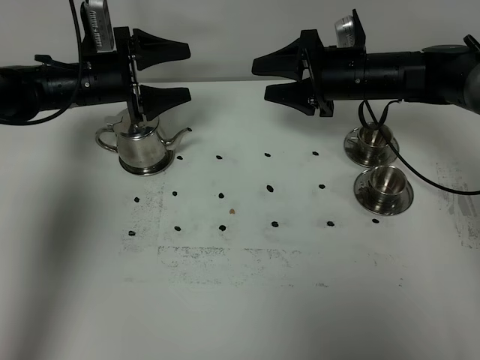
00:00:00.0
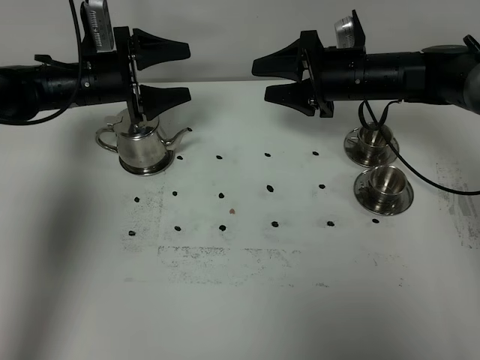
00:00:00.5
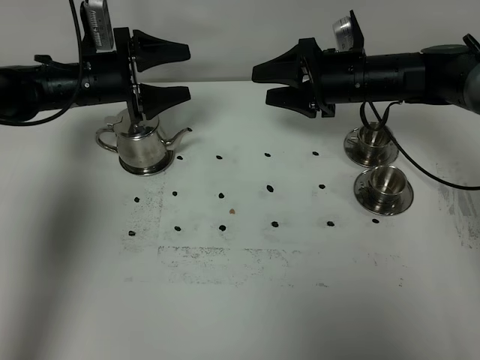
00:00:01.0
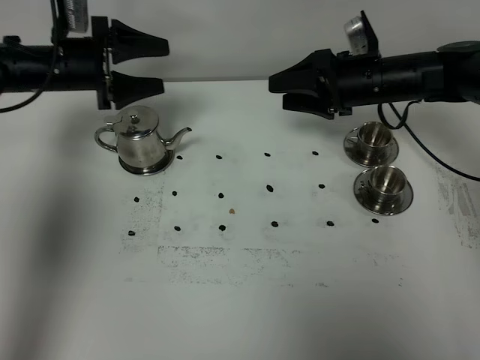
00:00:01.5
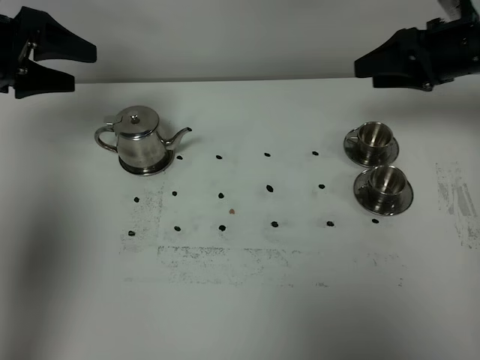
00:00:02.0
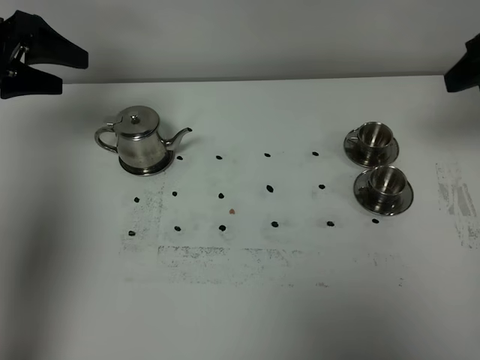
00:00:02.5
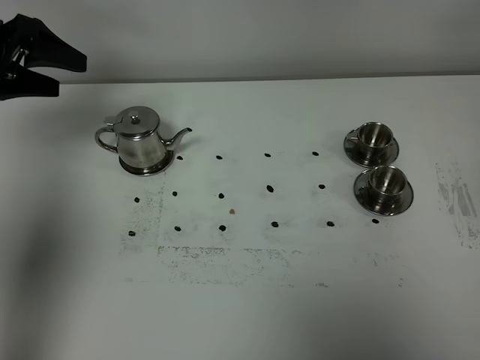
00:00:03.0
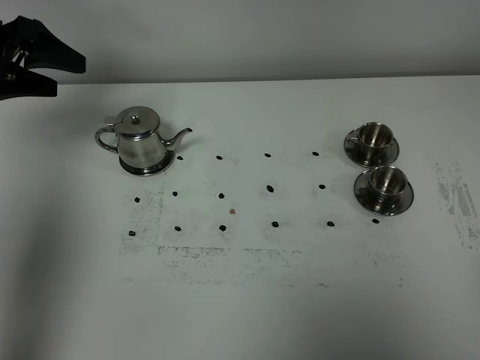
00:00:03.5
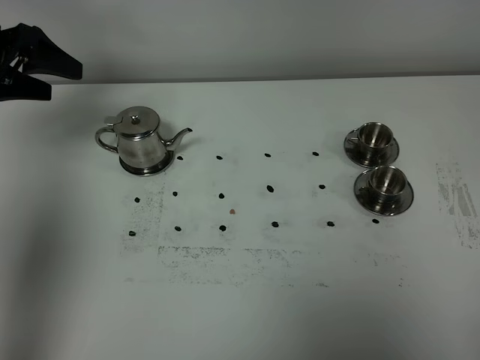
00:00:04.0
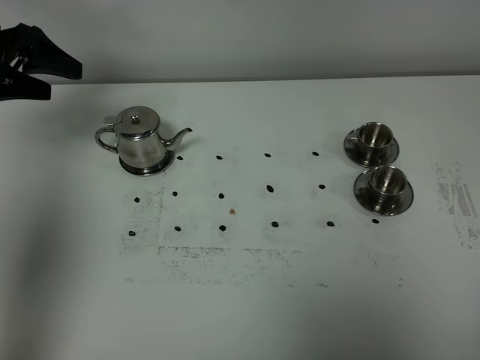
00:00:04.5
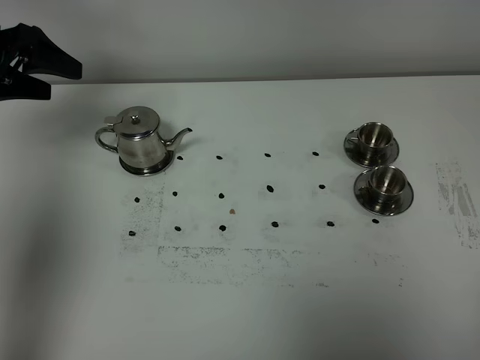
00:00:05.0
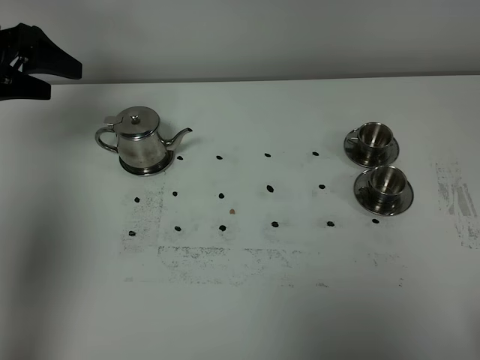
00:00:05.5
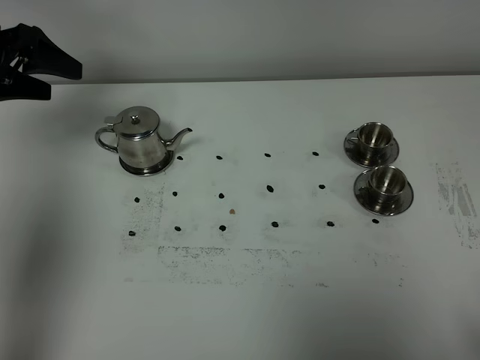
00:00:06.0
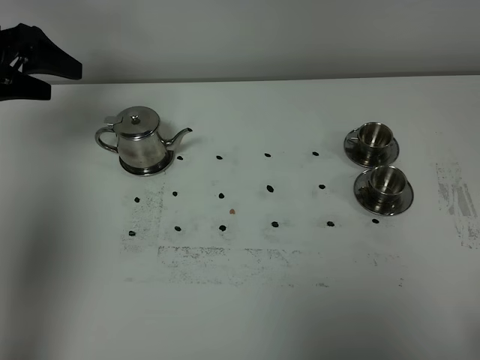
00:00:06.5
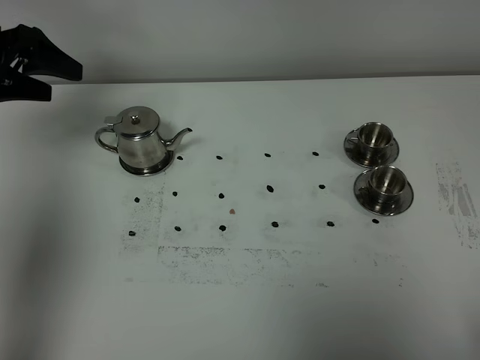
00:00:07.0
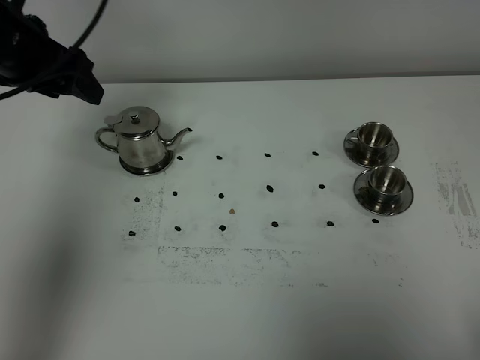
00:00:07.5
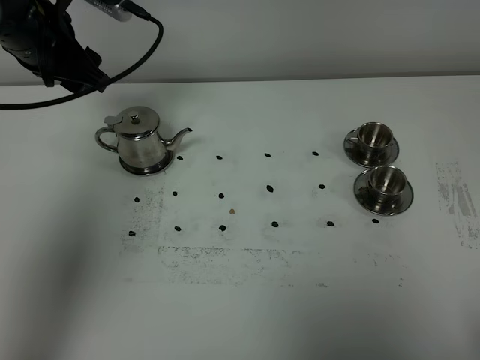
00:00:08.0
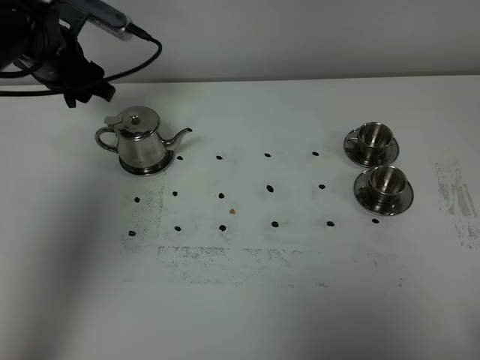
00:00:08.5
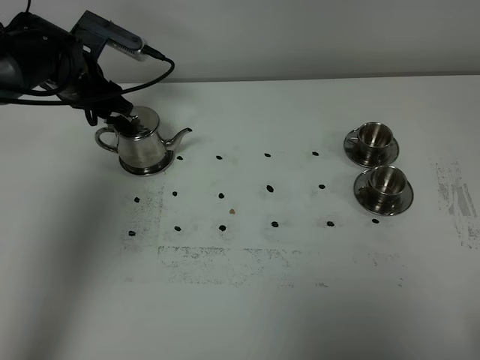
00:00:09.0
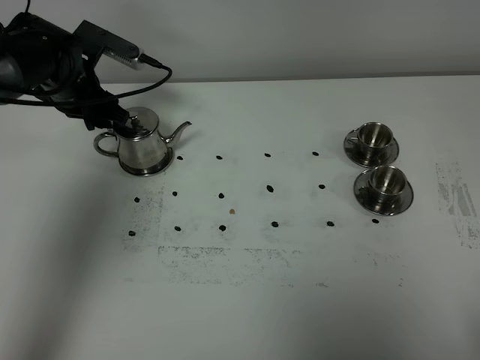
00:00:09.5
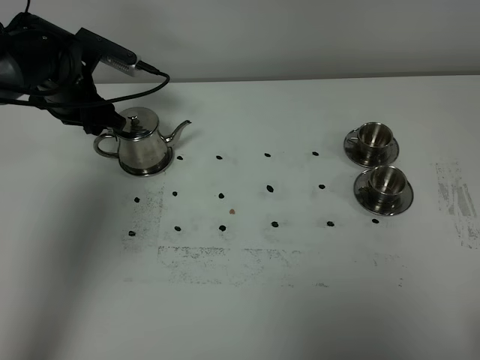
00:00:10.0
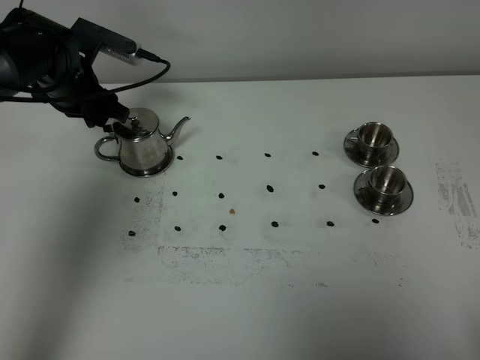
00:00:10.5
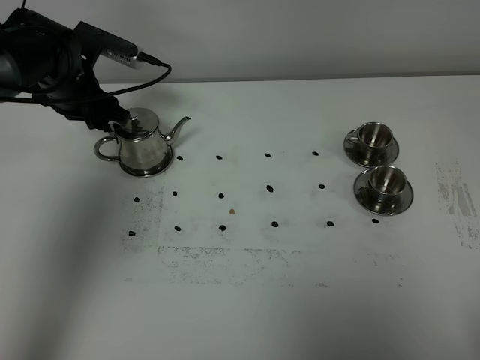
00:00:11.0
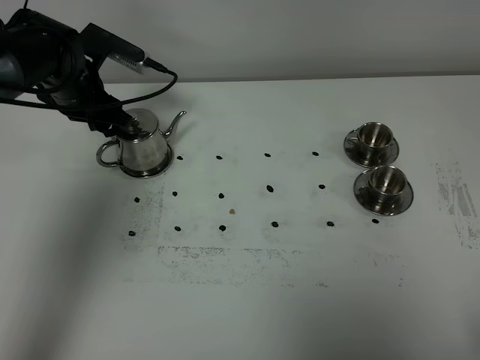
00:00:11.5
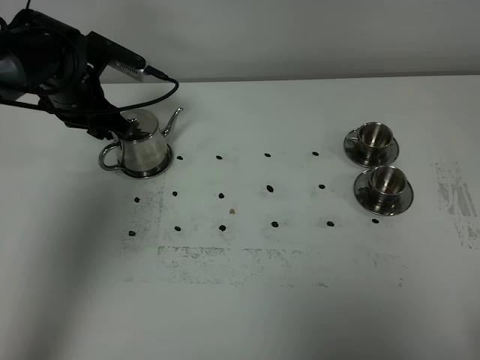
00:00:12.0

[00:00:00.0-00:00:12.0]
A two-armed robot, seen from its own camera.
Task of the whole recording: grasp the stainless steel teapot and pour the tea into the two stainless steel teacups one by one, put the stainless steel teapot back in its original place.
00:00:00.0 to 00:00:02.0: The left gripper shifts some 15 cm upward and to the left. Meanwhile the right gripper heads to the right and upward, covering roughly 15 cm.
00:00:02.0 to 00:00:04.0: The right gripper moves backward, some 40 cm.
00:00:06.0 to 00:00:08.0: The left gripper shifts about 10 cm to the right.
00:00:08.0 to 00:00:10.0: The left gripper shifts about 10 cm downward.
00:00:10.0 to 00:00:12.0: The grippers move only a little.

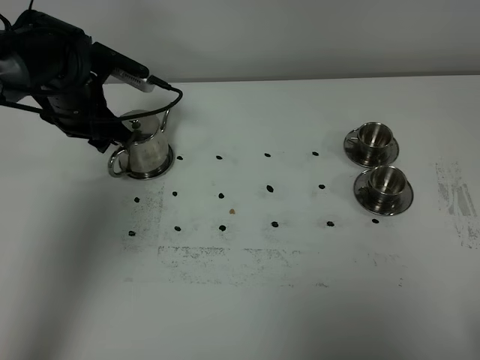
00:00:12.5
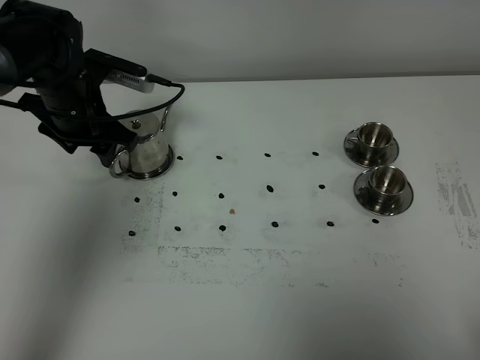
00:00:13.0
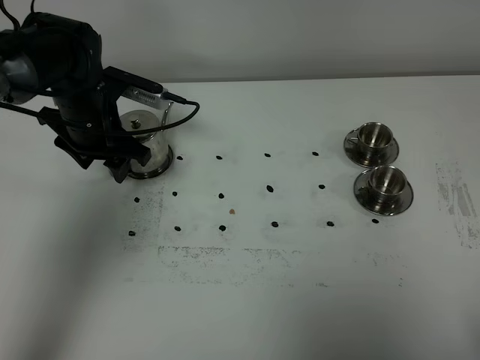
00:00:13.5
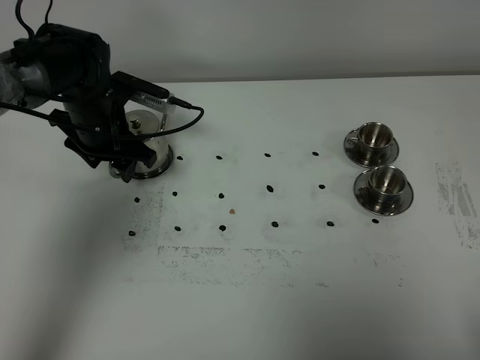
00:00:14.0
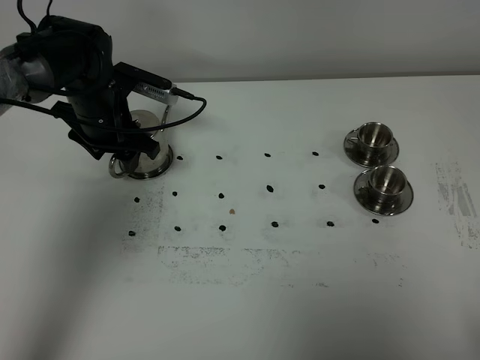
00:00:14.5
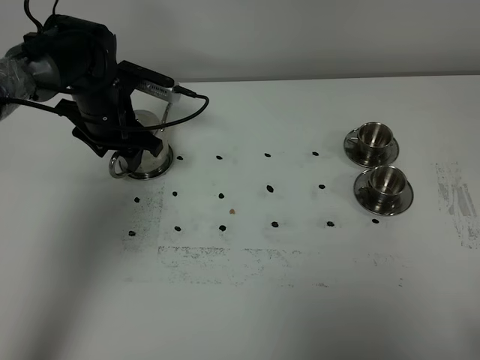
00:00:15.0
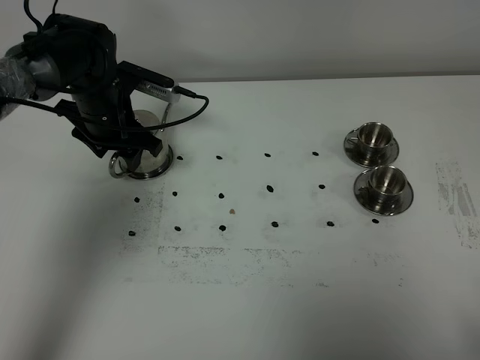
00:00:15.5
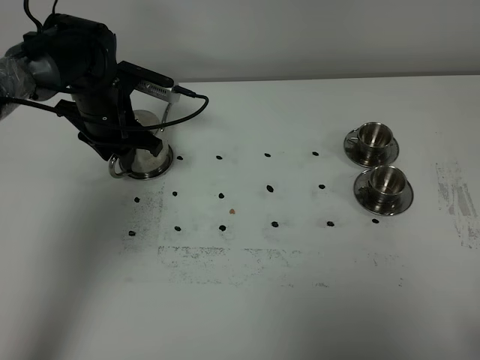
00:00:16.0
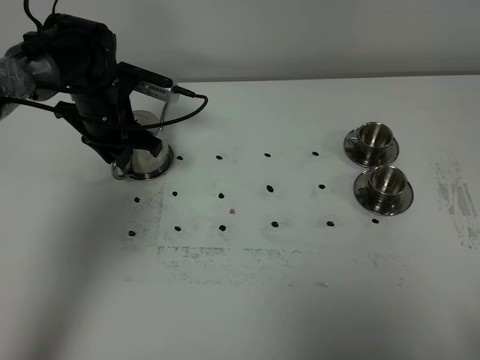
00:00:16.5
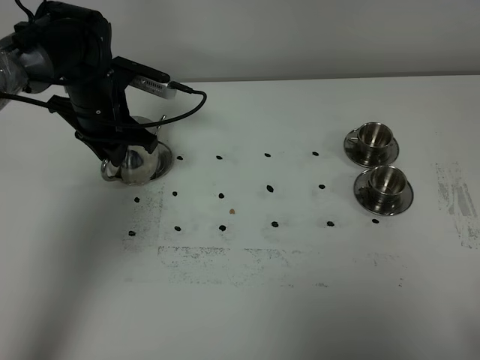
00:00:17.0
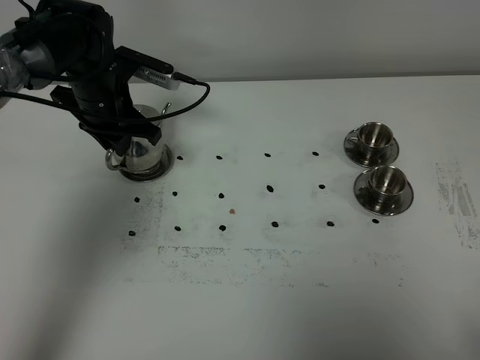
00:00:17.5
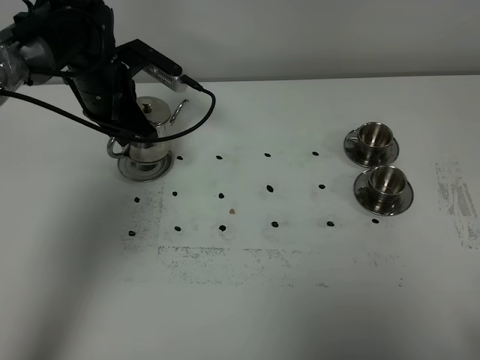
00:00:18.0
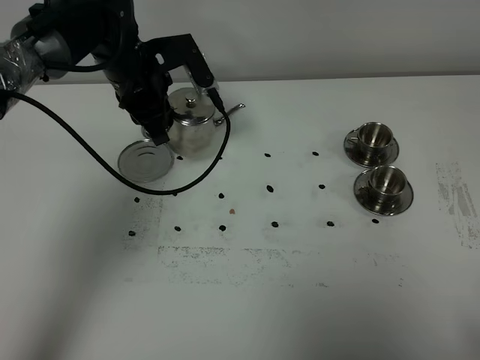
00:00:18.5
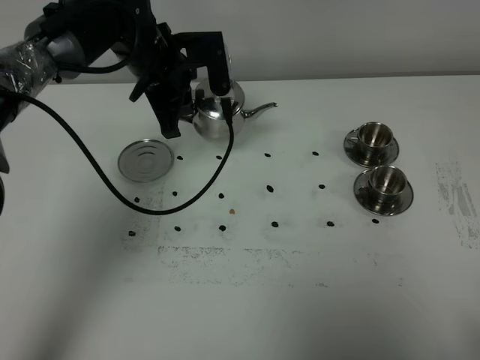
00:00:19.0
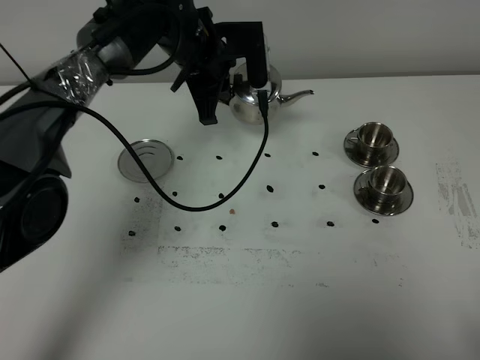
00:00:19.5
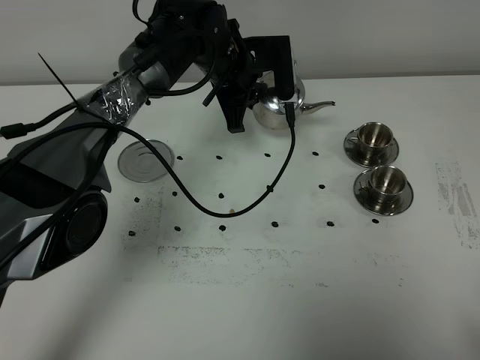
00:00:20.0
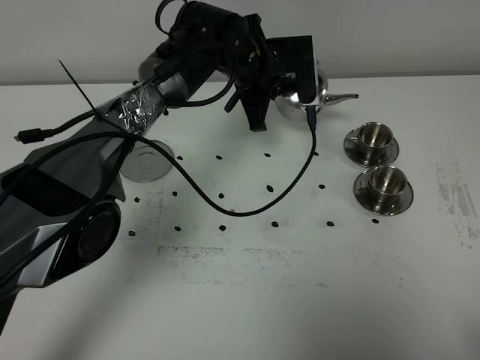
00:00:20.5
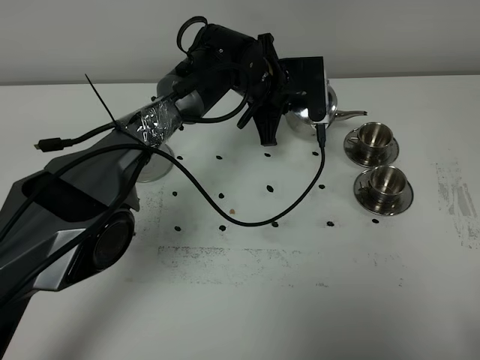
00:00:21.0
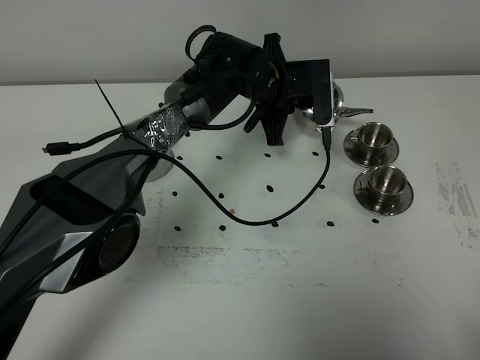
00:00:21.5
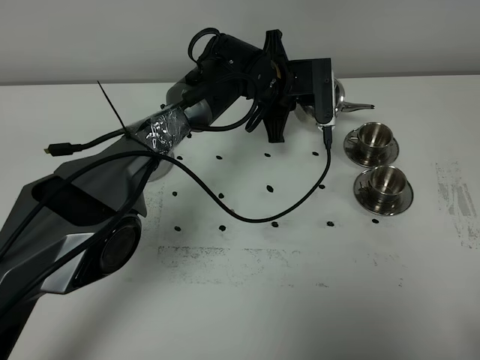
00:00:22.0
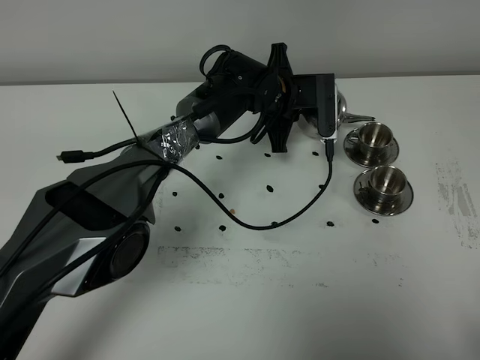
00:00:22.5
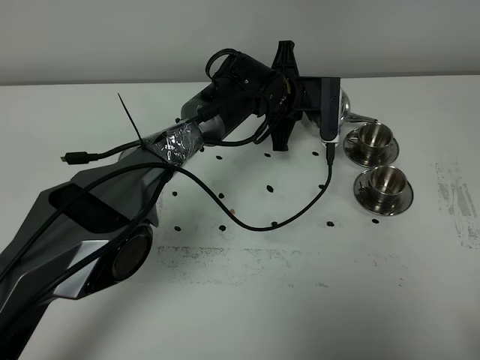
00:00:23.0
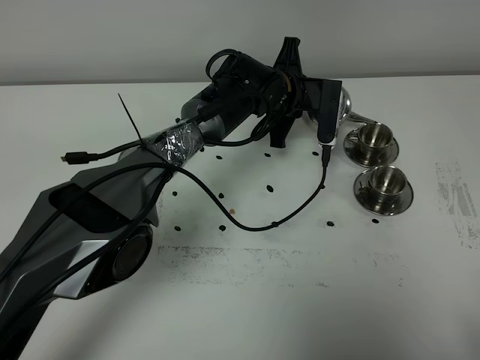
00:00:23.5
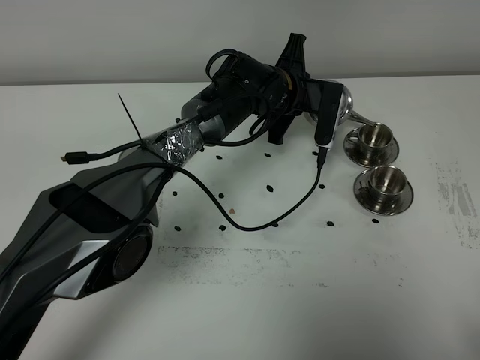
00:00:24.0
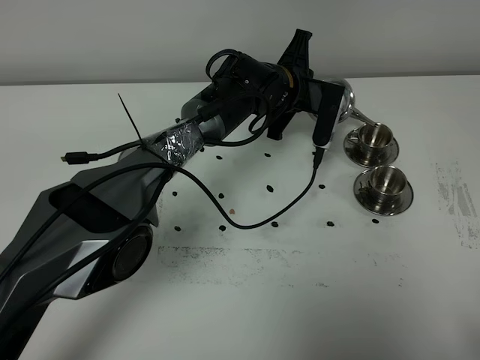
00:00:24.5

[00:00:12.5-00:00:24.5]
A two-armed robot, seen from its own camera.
Task of the whole recording: grasp the stainless steel teapot and pour the tea into the two stainless steel teacups one by one, put the stainless steel teapot back in its original place.
Step, 00:00:12.5 to 00:00:17.5: Pick up the teapot with the left gripper.
00:00:12.5 to 00:00:14.5: The grippers make only small movements.
00:00:14.5 to 00:00:16.5: The left gripper closes its fingers.
00:00:16.5 to 00:00:18.5: The left gripper shifts about 5 cm upward.
00:00:18.5 to 00:00:20.5: The left gripper moves to the right, some 15 cm.
00:00:20.5 to 00:00:22.5: The left gripper goes roughly 5 cm downward.

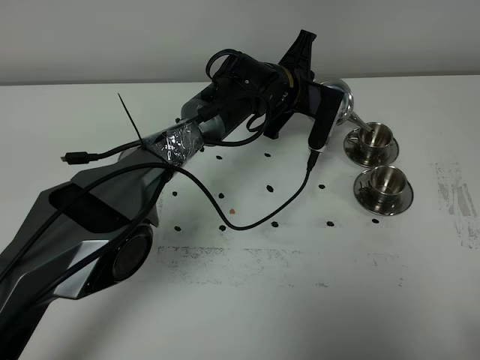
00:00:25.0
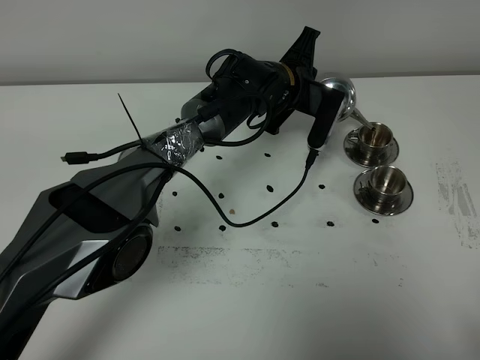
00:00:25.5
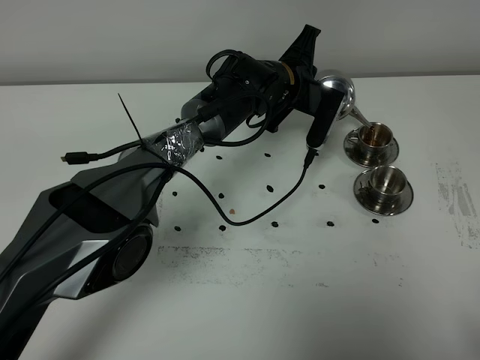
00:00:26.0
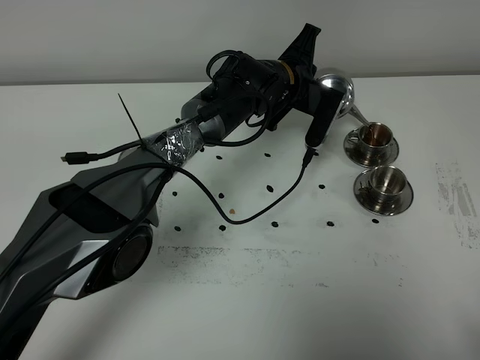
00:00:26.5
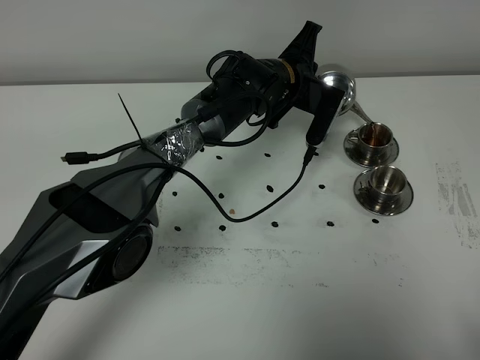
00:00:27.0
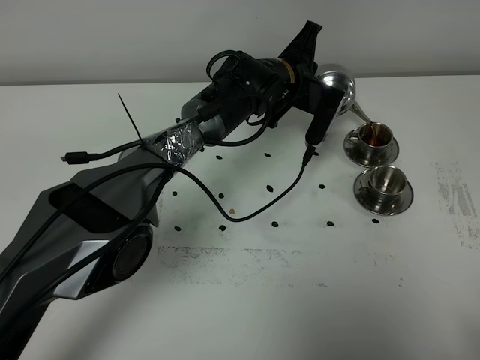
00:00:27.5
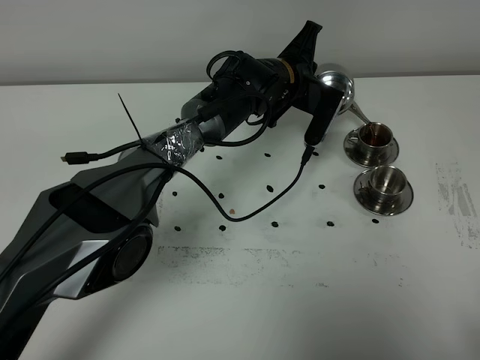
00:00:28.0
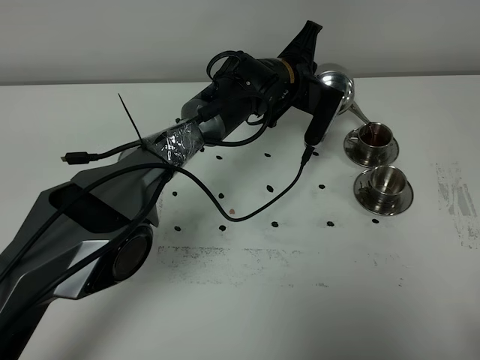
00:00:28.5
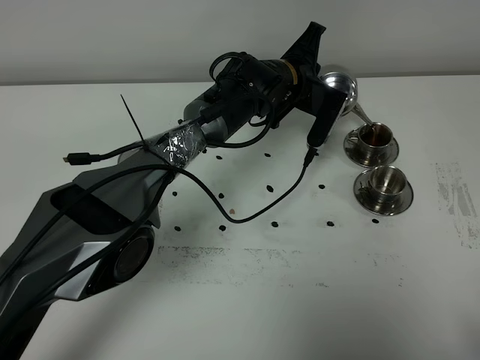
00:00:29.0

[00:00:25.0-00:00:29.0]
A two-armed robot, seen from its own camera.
Task of the whole recording: grasp the stainless steel teapot and pour the tea into the two stainless steel teacups one by one, put the stainless steel teapot back in its original place.
00:00:25.0 to 00:00:27.0: There are only small adjustments of the grippers.
00:00:27.0 to 00:00:29.0: Neither gripper changes place.
